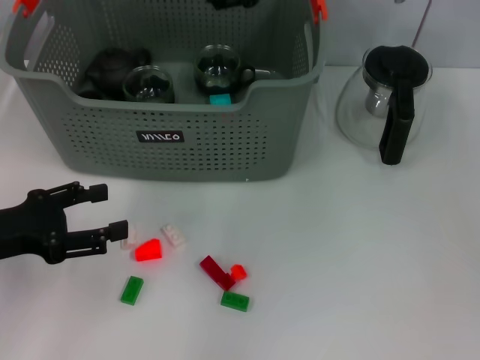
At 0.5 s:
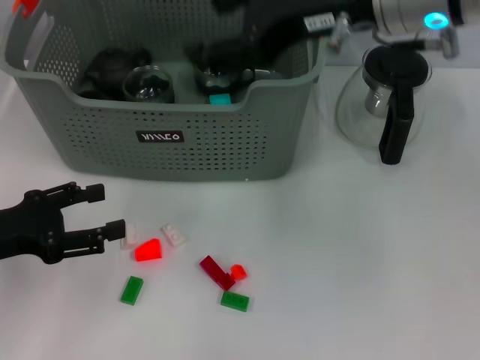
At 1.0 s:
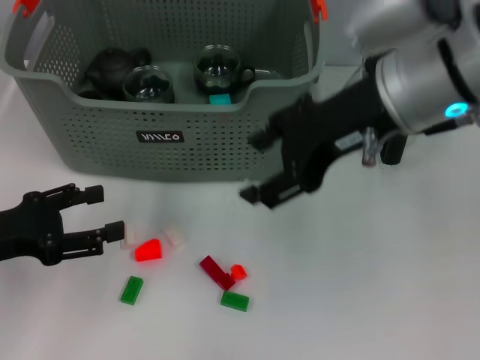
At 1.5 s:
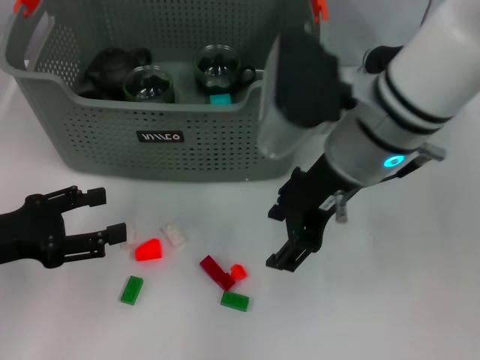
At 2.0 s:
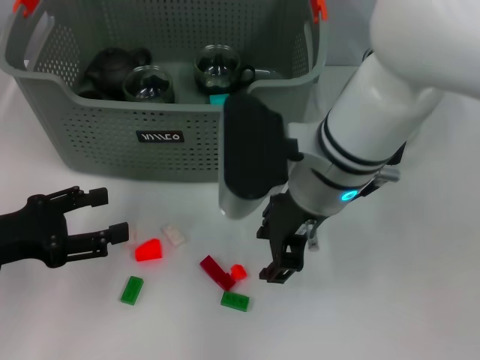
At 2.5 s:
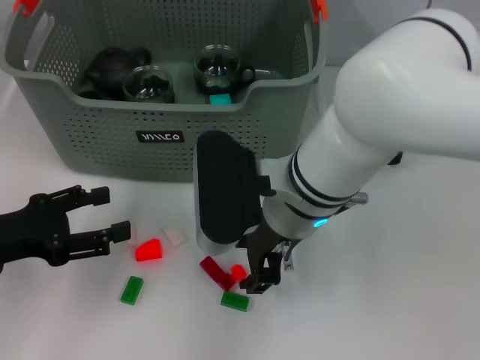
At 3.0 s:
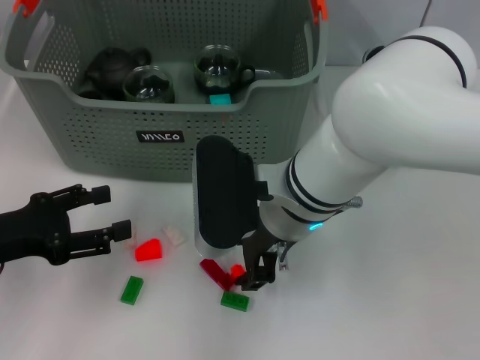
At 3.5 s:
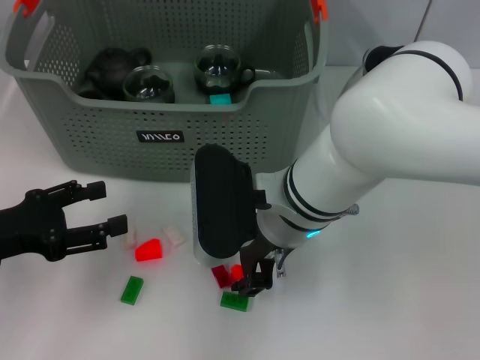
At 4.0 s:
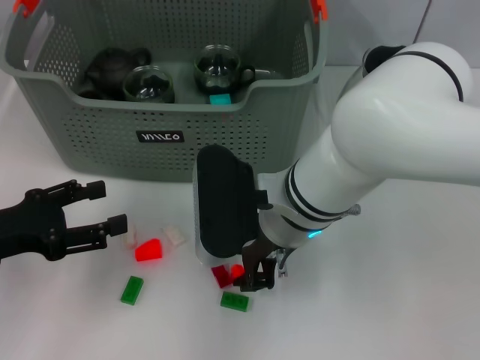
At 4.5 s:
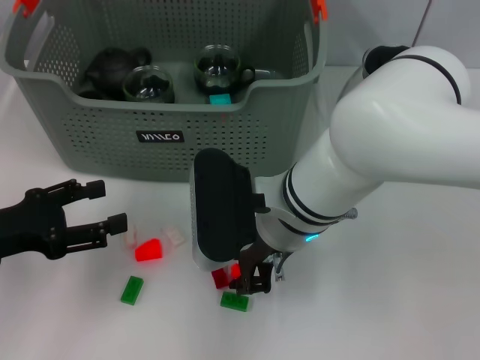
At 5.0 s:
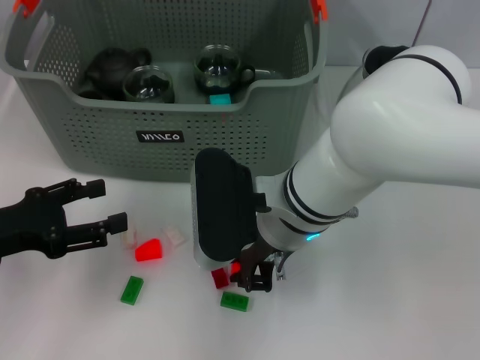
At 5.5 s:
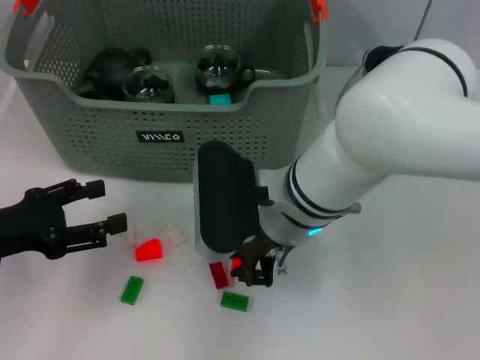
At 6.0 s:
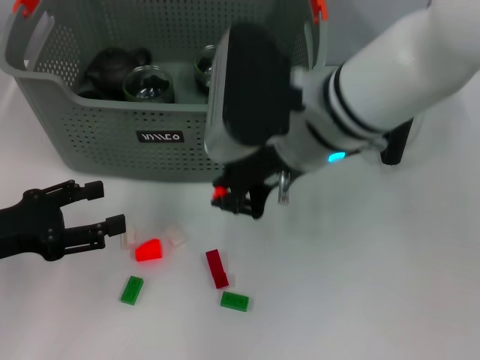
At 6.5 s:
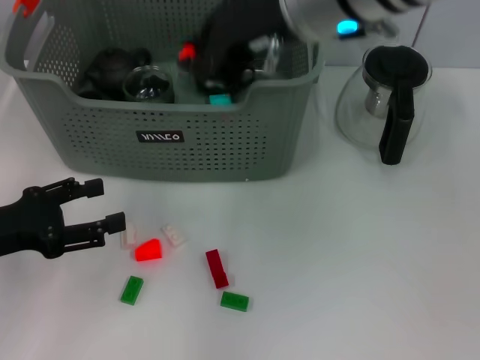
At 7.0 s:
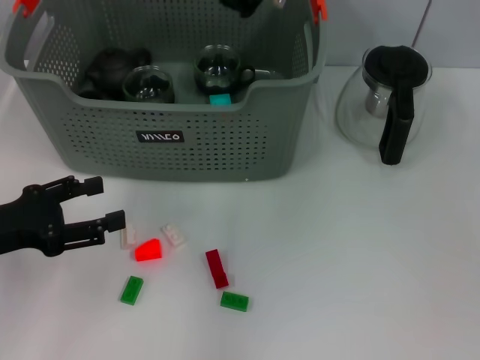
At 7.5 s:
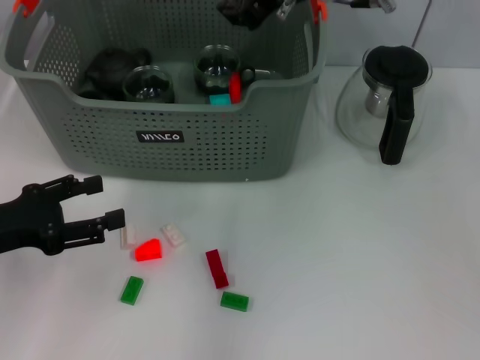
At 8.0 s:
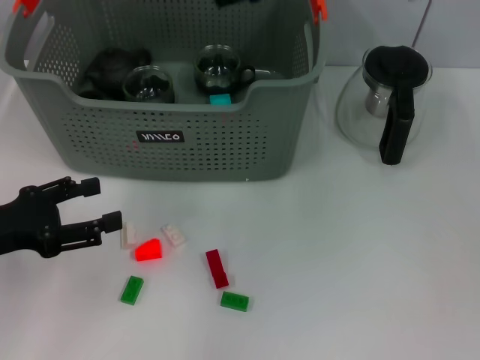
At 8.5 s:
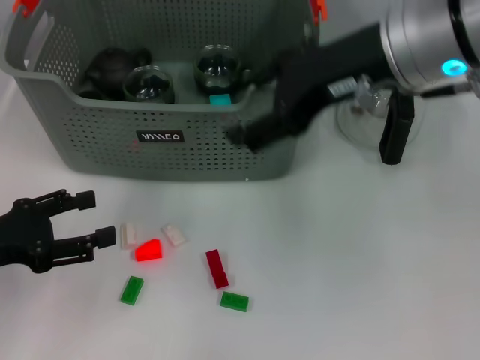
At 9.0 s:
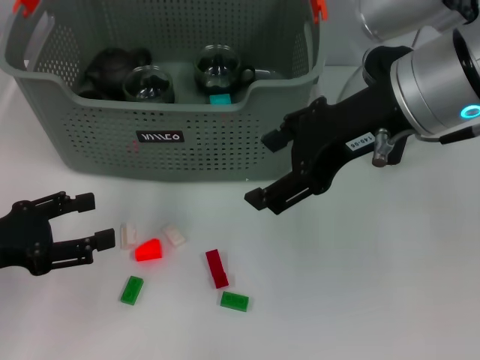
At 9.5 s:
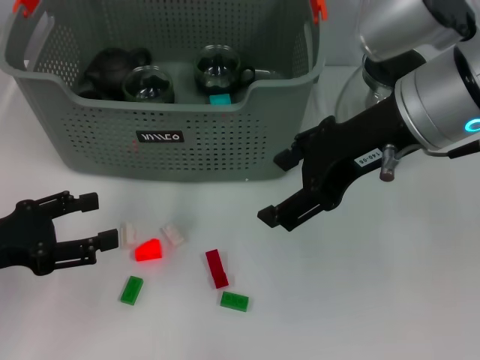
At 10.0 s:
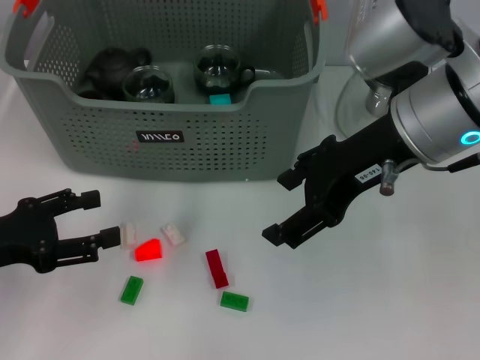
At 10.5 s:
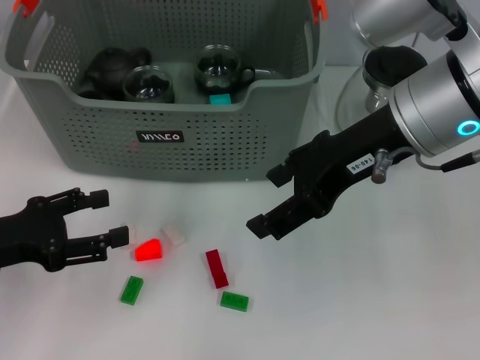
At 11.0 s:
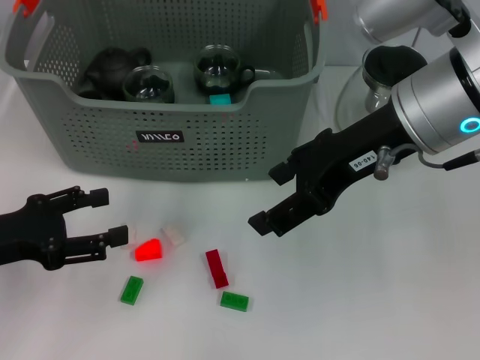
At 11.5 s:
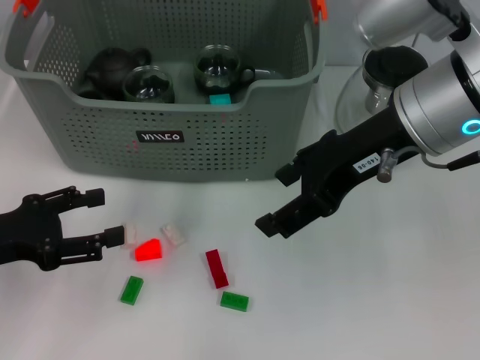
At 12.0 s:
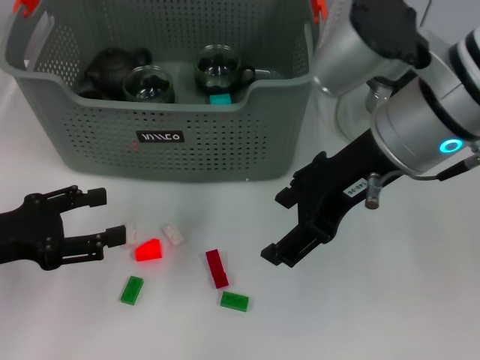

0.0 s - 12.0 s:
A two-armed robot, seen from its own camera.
Task of the whole recording: pick up the teacup on the table and place it into the storage bin, pick up the block on the table and place it into the storage bin.
Step, 0.0 s - 4.5 s: Grasp the orange block with right gripper.
Step, 5.5 s - 7.5 s: Place the orange block in the storage box with right gripper.
0.0 s - 2.0 s: The right gripper shifts about 15 cm downward and backward.
2.0 s - 4.0 s: The right gripper changes place by approximately 5 cm.
4.0 s - 6.0 s: The right gripper heads upward, covering roughly 10 cm, and closes.
6.0 s - 8.0 s: The right gripper goes roughly 10 cm upward and forward, and opens up.
8.0 s - 10.0 s: The right gripper moves backward, approximately 10 cm.
10.0 s - 12.0 s: The grippers stay close to where they were, moving slightly.

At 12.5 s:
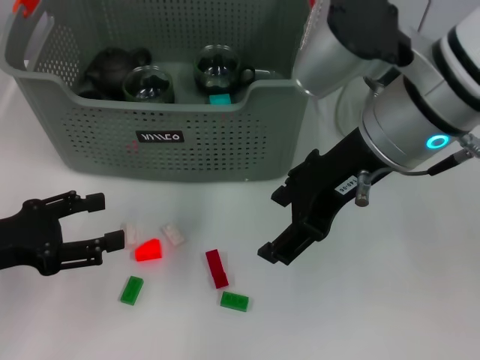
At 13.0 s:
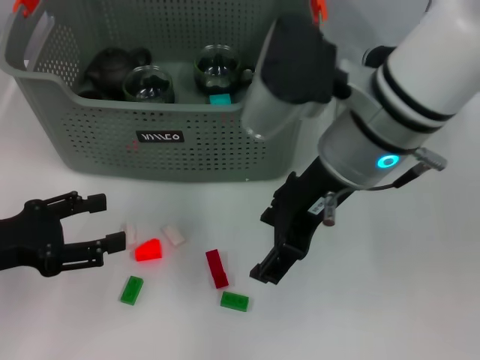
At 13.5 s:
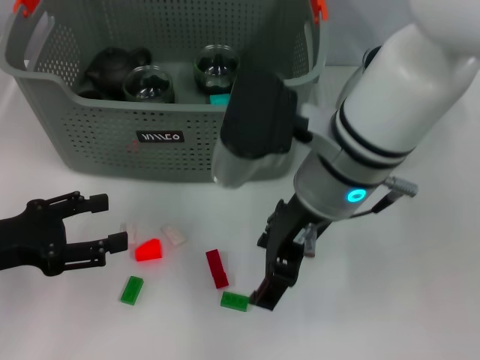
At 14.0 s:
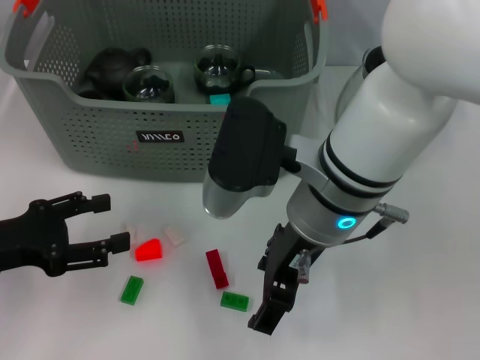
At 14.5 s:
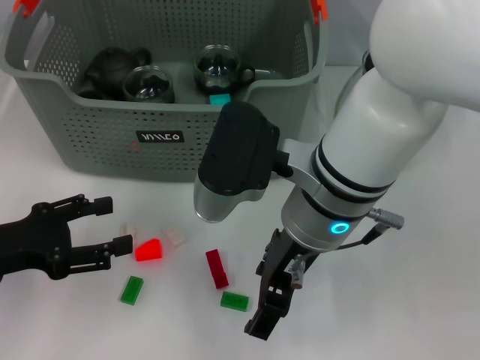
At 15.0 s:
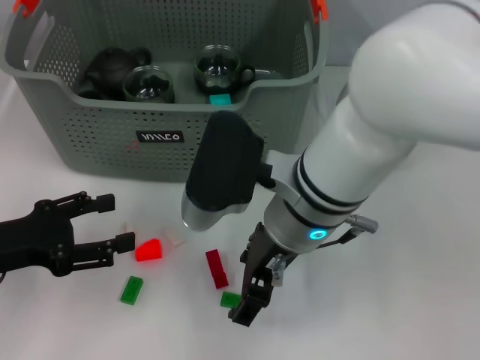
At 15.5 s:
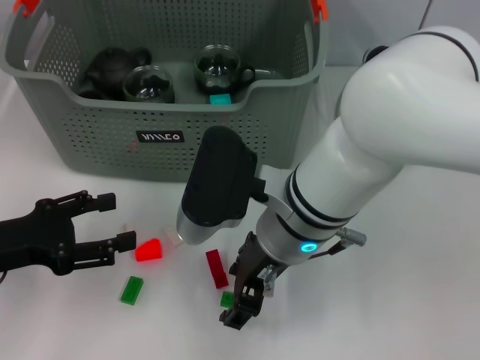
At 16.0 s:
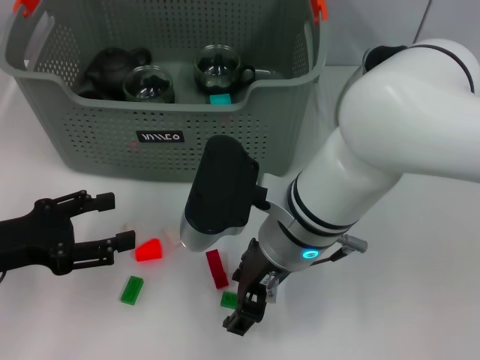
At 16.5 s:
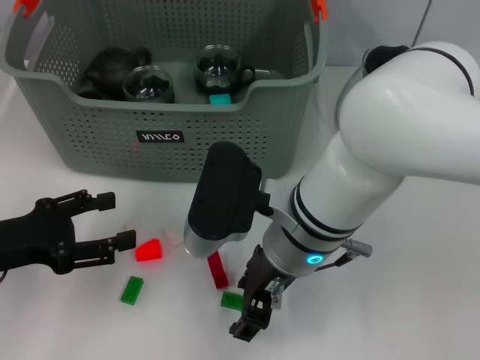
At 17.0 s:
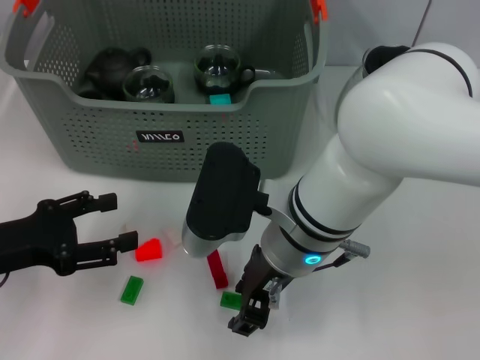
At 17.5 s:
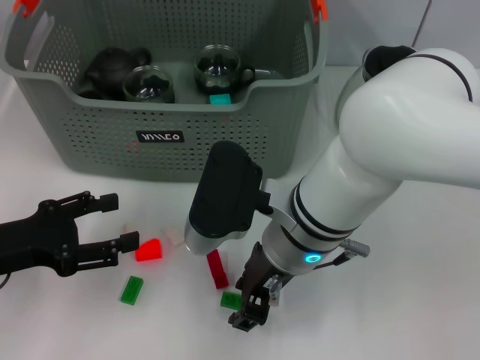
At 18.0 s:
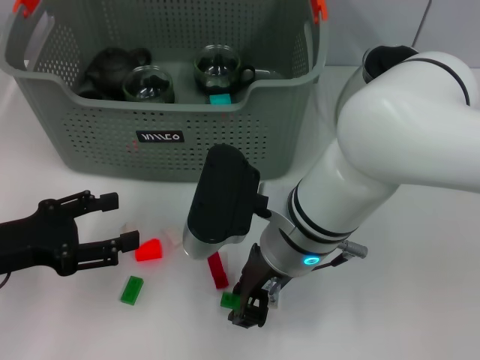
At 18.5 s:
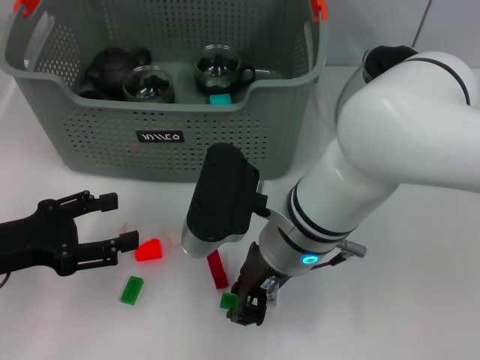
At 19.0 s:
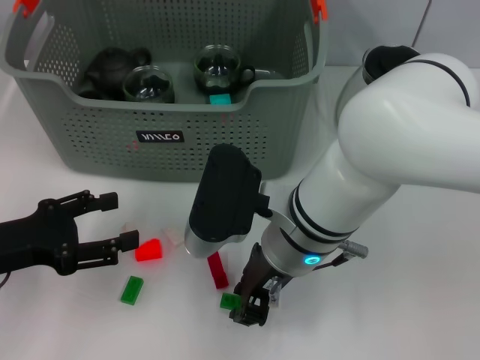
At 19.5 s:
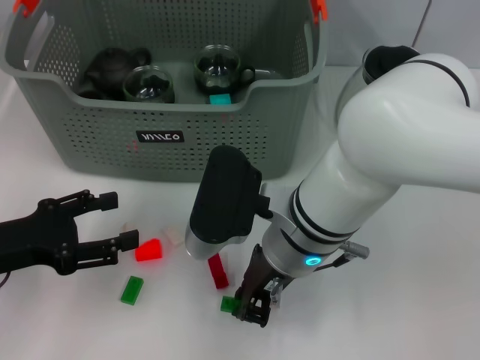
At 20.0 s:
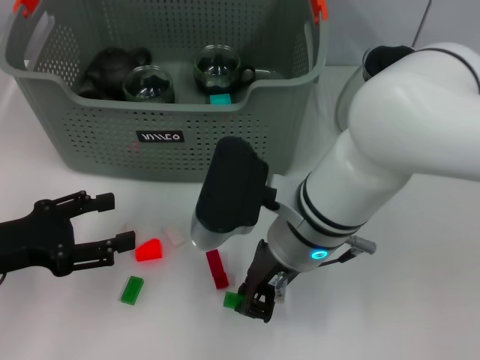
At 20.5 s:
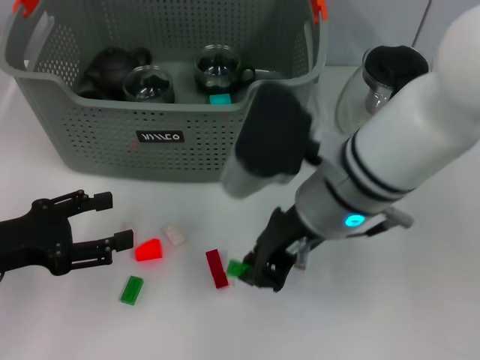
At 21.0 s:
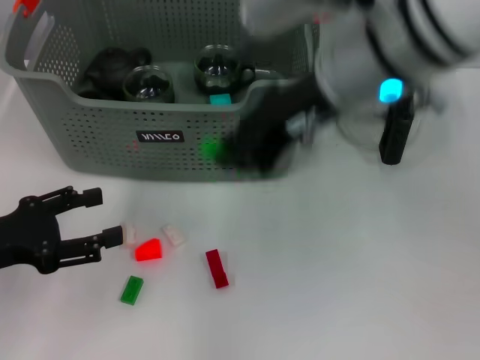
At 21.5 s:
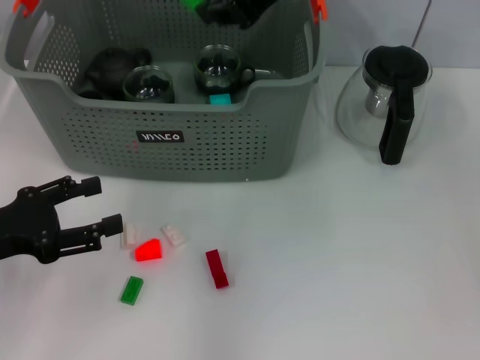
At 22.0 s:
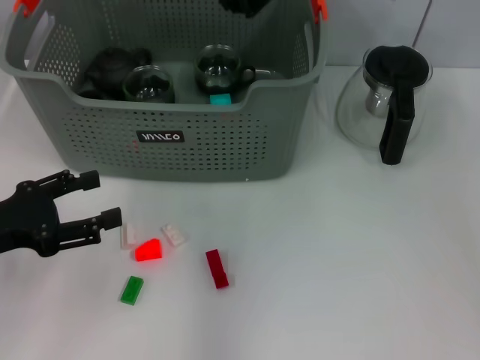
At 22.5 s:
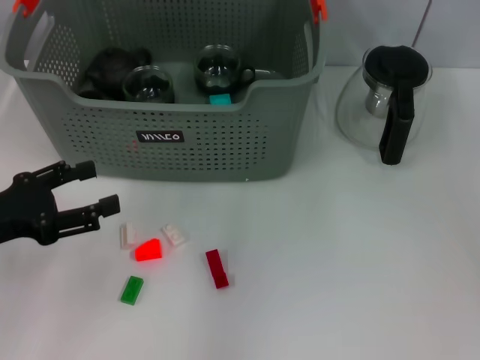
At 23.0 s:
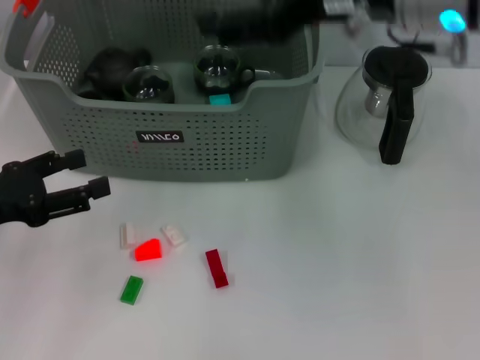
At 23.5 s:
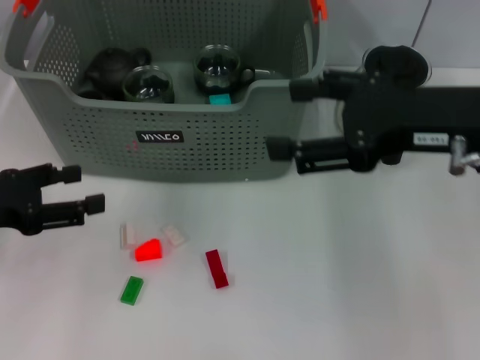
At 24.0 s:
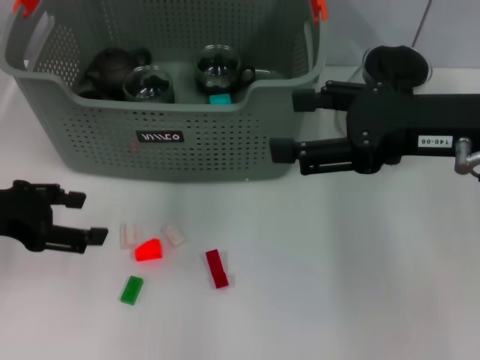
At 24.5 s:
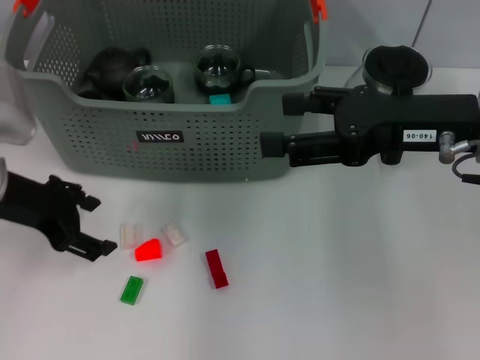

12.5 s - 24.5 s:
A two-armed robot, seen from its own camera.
Task of the whole recording: pick up the teacup on the table and place it into the storage bin, pick up the block on the table and place it into the storage bin.
Step, 12.5 s - 19.0 s: Grasp the green block with right gripper.
Step, 19.5 s - 22.0 s: Place the green block in the storage box with right gripper.
12.5 s - 14.5 s: The right gripper heads downward and to the left, covering some 10 cm.
16.5 s - 18.5 s: The right gripper closes up.
18.5 s - 20.5 s: The right gripper ends up roughly 5 cm from where it was.
20.5 s - 22.5 s: The right gripper travels forward and upward by roughly 20 cm, and opens up.
22.5 s - 24.5 s: The right gripper is displaced backward, to the right and downward by about 20 cm, and opens up, while the left gripper moves forward, to the right and upward, approximately 10 cm.

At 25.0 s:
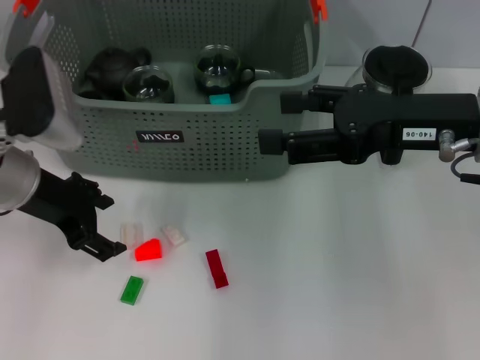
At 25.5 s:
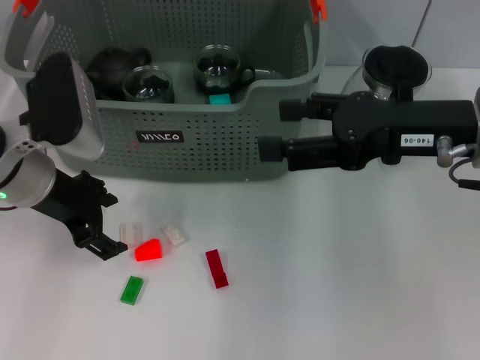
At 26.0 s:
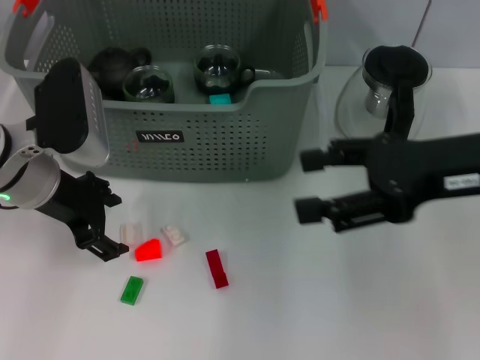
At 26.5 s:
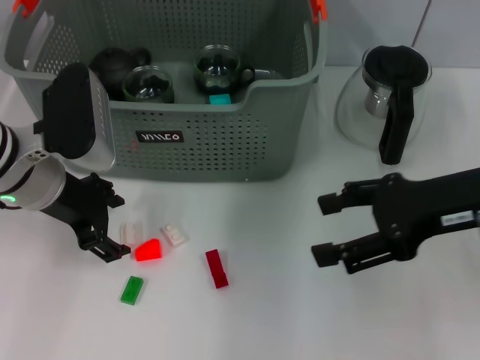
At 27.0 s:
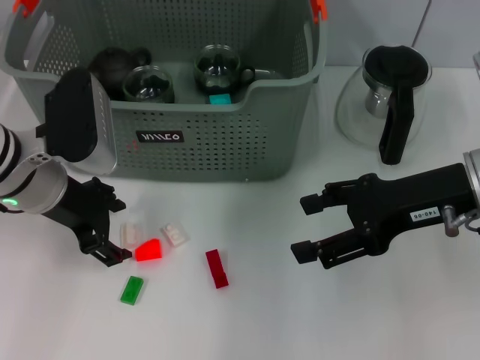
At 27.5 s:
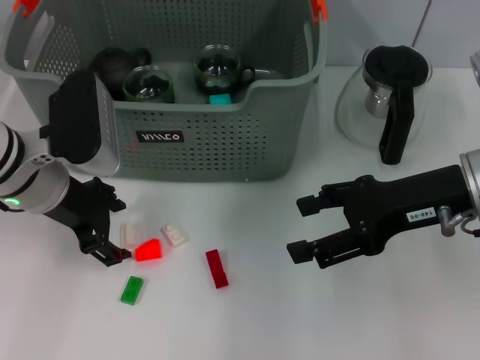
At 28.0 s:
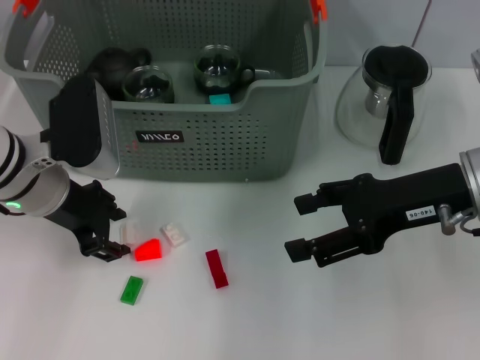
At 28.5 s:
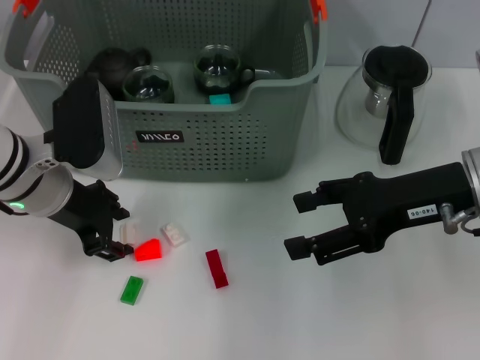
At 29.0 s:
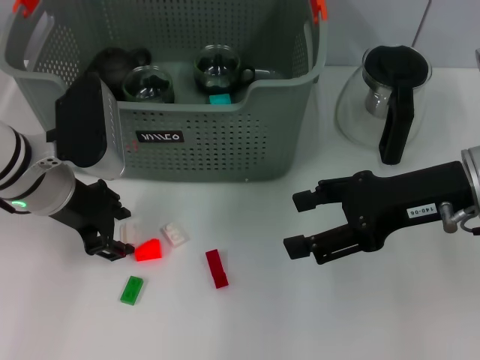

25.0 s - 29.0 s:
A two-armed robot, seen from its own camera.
Task of the whole recording: pick up the teacup on the table and place it into the storage bin, pick up the block on the table and place it into the storage bin.
27.0 s - 29.0 s: Neither gripper changes place.
